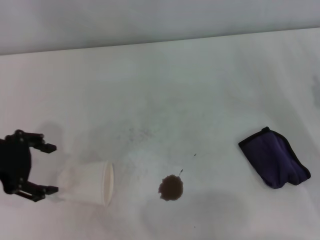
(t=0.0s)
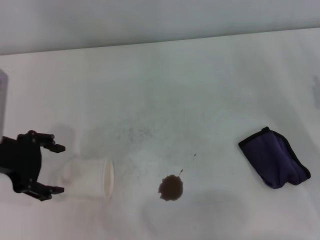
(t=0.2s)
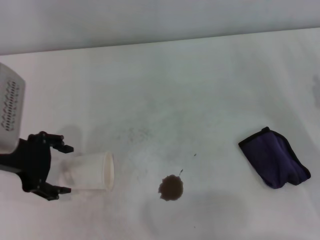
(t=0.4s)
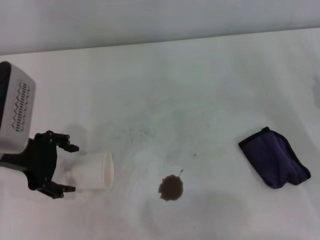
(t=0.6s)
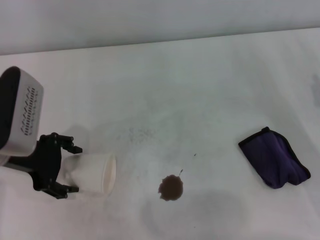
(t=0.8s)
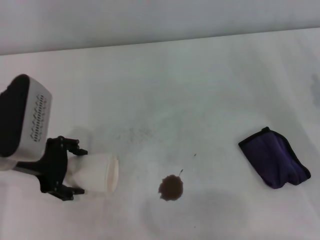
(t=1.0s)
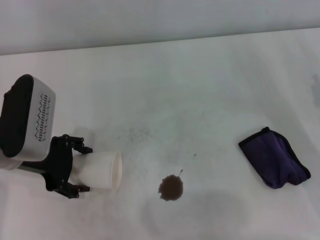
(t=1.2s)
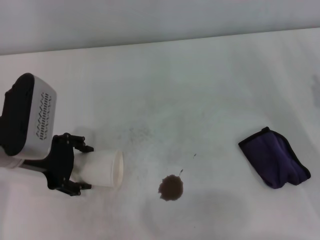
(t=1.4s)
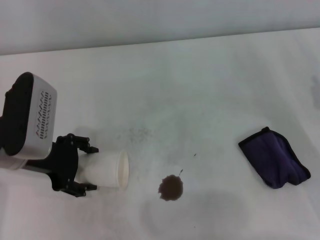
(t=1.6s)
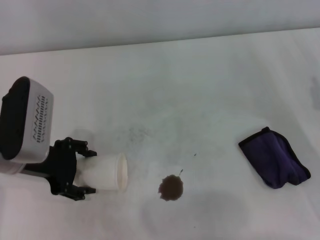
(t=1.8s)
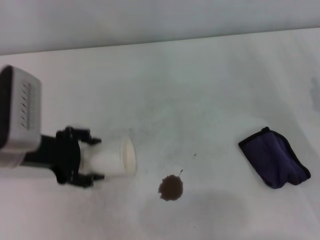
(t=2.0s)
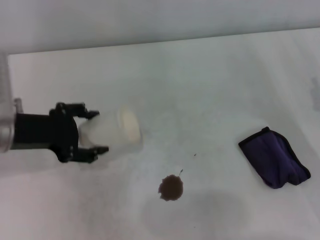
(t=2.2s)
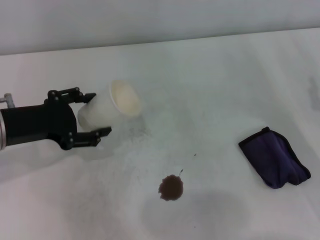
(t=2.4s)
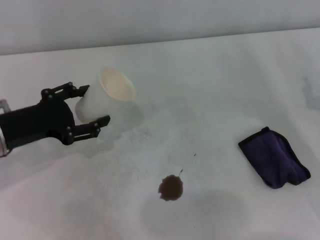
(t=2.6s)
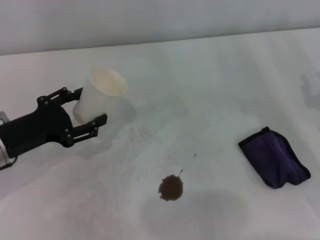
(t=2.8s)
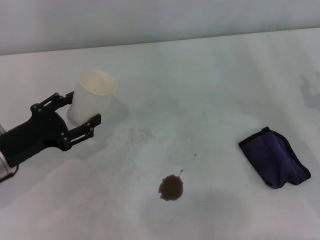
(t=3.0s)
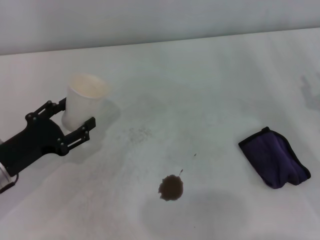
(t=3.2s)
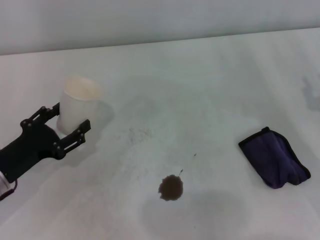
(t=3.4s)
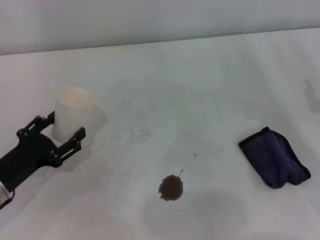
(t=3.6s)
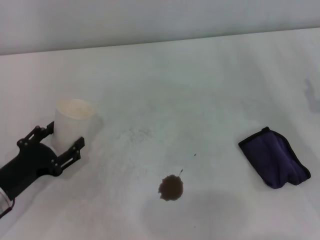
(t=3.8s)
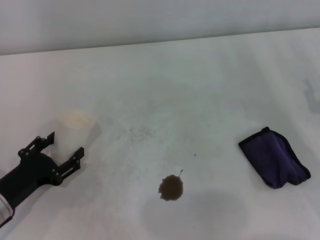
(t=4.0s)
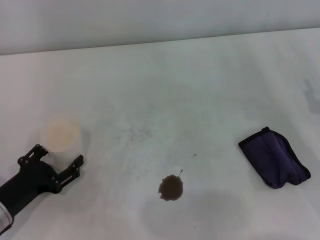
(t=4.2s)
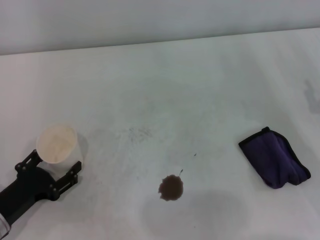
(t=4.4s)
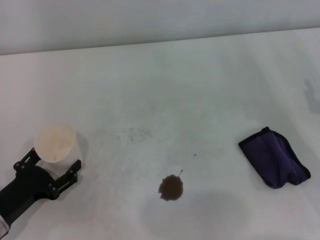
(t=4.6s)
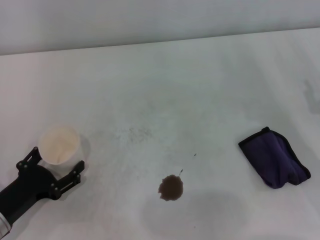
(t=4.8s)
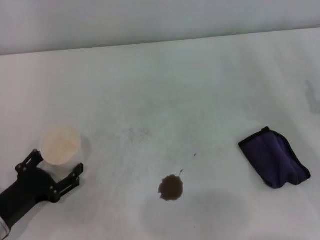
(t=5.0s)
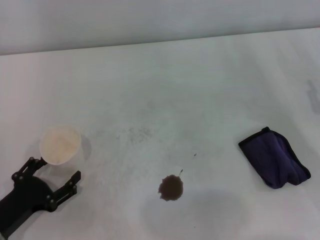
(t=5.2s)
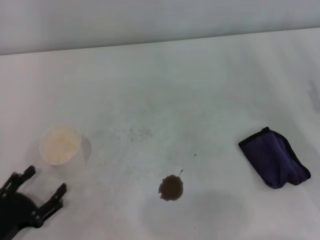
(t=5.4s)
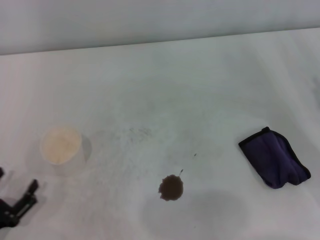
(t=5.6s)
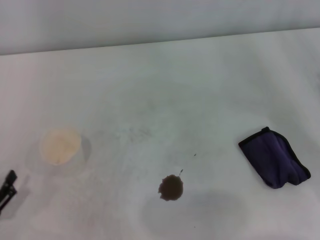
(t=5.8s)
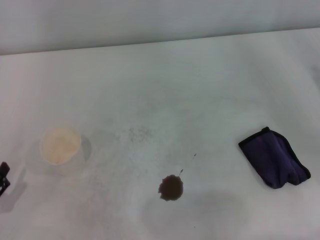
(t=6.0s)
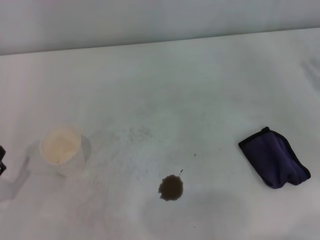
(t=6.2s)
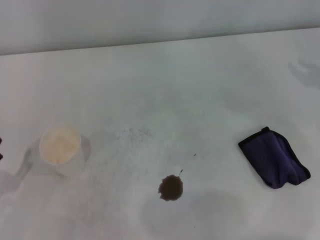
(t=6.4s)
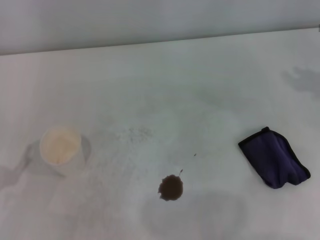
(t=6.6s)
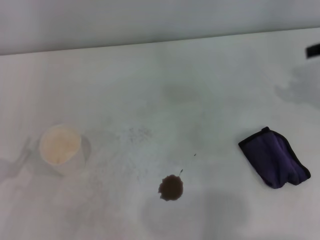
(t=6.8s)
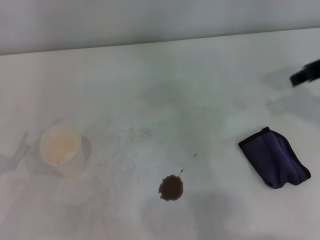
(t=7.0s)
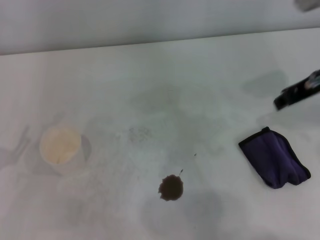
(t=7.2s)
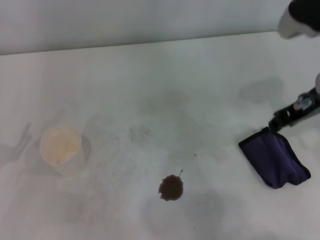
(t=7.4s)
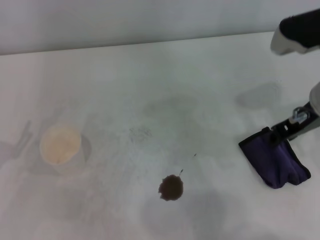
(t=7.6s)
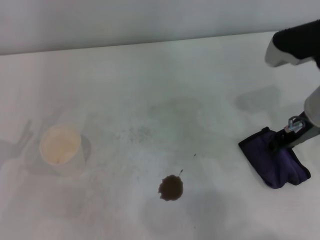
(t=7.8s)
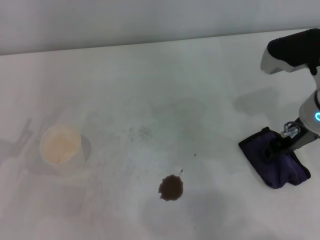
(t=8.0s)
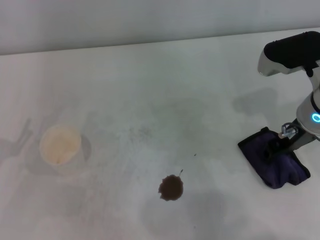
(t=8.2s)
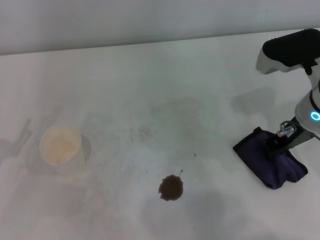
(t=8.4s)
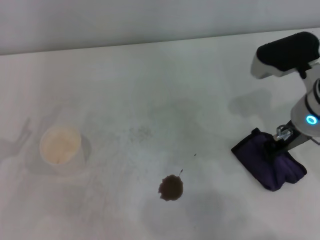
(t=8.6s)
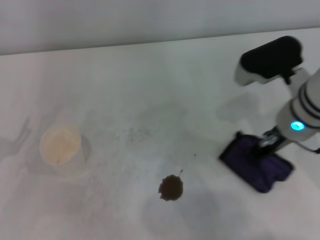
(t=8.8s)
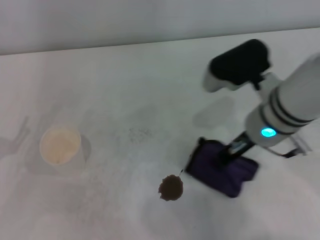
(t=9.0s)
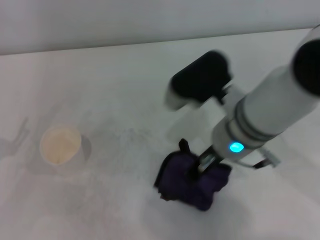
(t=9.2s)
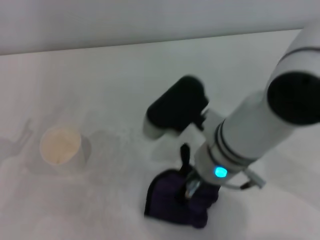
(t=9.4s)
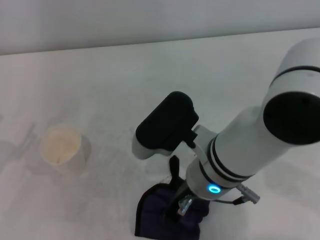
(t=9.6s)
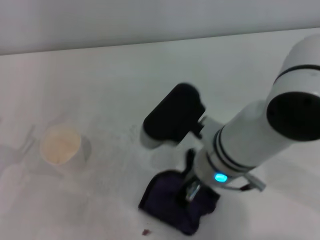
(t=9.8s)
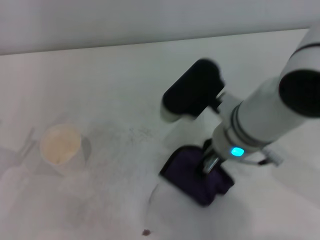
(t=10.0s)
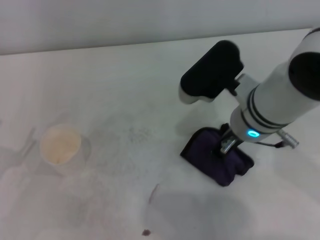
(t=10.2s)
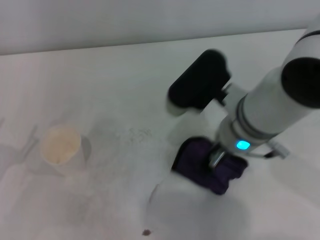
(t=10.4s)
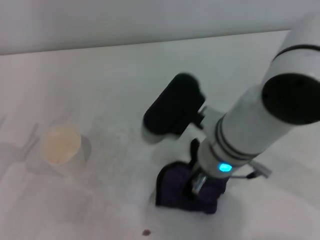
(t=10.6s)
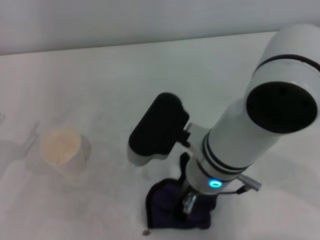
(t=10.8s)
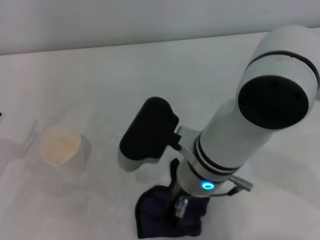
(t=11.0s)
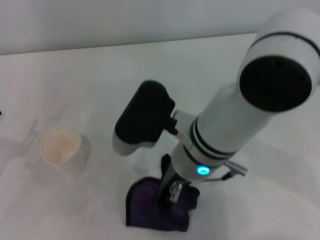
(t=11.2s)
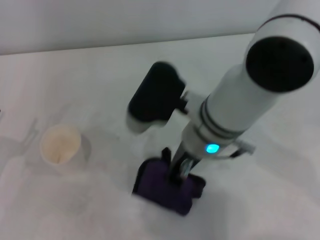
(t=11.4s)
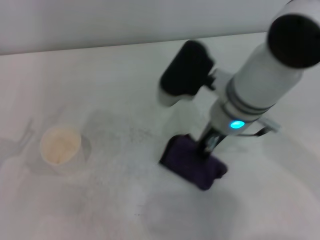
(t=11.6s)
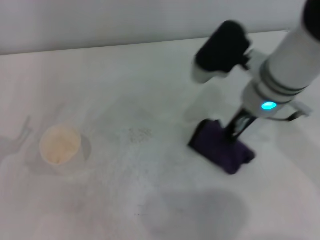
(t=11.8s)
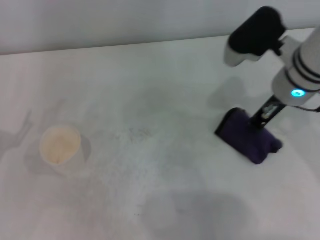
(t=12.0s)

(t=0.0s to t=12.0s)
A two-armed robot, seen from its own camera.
Step, t=0.0s - t=1.0s: Grasp the paper cup with the left gripper.
Step, t=1.2s - t=4.8s: Stand the paper cup upright with the left gripper.
Step, t=5.0s - t=8.0s: Grasp the rag with the right gripper.
Step, t=8.4s - t=11.6s: Wipe the stains off the table with the right gripper.
t=0.0s - t=1.6s: The left gripper moves to the right, approximately 5 cm.
t=1.6s - t=3.0s: The left gripper heads downward, covering some 5 cm.
t=3.0s - t=4.4s: The left gripper travels backward and downward by roughly 10 cm.
t=4.4s - t=6.0s: The left gripper goes approximately 10 cm backward and to the left.
t=6.0s - t=7.6s: The right gripper moves to the left, approximately 15 cm.
t=7.6s - t=9.0s: The right gripper goes approximately 10 cm to the left, and closes up.
t=10.4s - t=12.0s: The right gripper shifts roughly 10 cm to the right and forward.

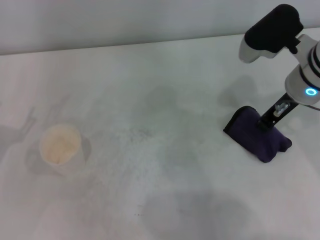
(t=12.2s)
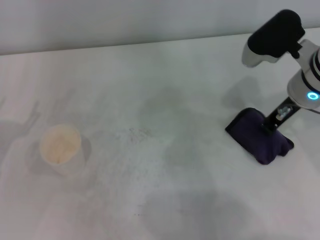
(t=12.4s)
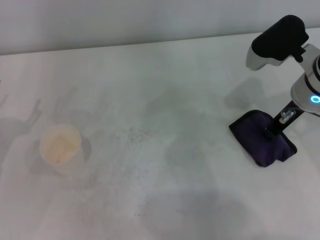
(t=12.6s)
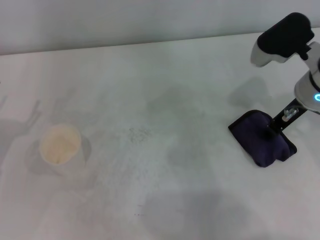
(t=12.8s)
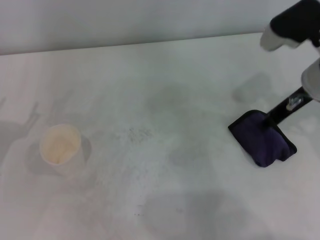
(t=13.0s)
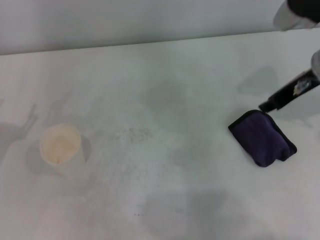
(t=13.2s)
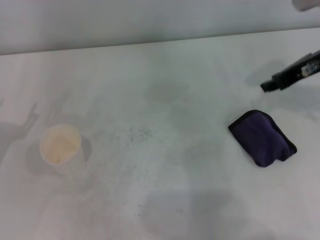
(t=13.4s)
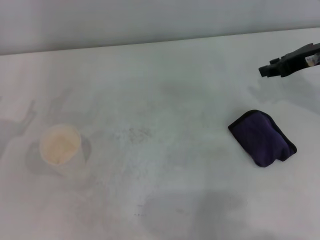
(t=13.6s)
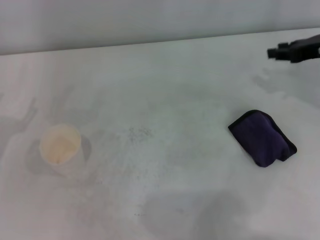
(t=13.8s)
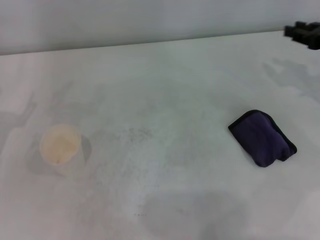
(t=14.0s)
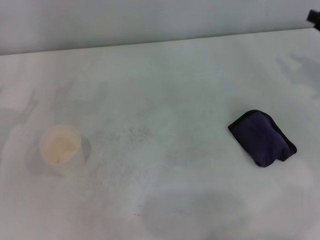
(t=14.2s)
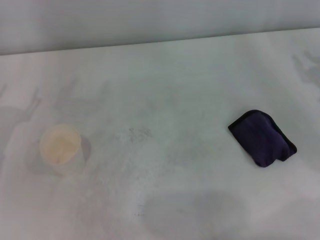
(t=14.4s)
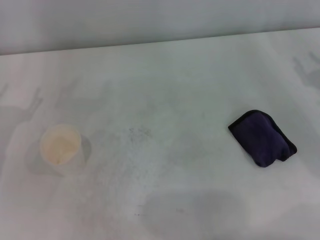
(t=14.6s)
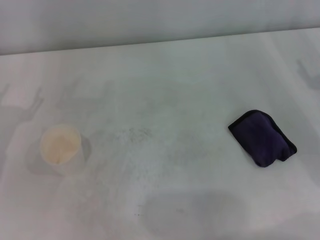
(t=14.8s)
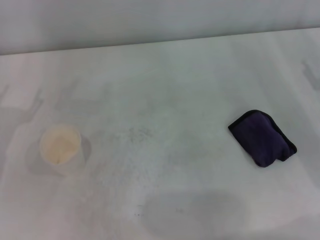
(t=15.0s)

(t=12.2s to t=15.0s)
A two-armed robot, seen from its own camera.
Step, t=12.2s - t=12.8s: Place the rag on the table with the right gripper.
t=12.2s - t=13.6s: The right gripper goes approximately 10 cm to the right, and opens.
t=13.6s - t=15.0s: The right gripper travels downward, backward and to the right by approximately 15 cm.
